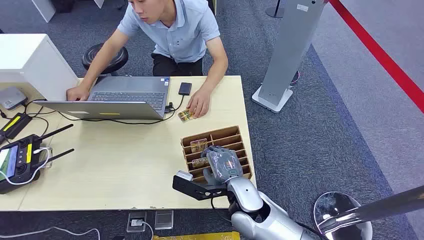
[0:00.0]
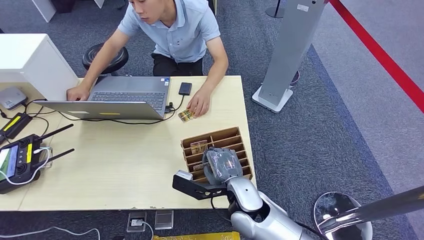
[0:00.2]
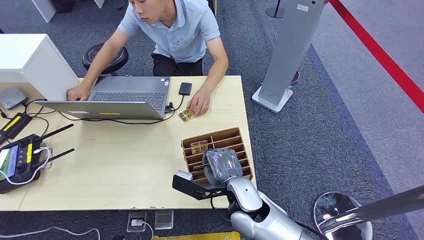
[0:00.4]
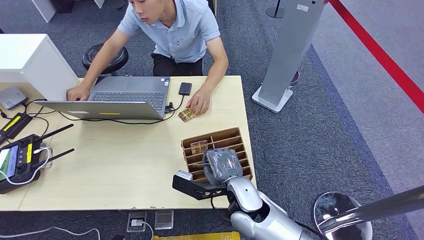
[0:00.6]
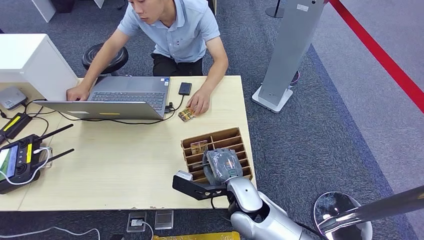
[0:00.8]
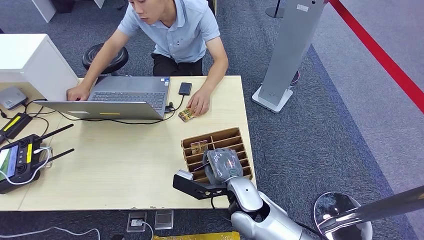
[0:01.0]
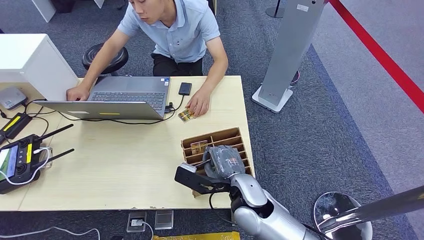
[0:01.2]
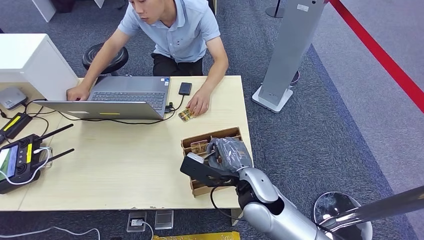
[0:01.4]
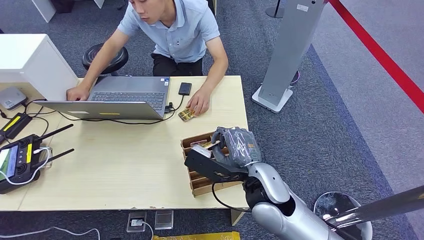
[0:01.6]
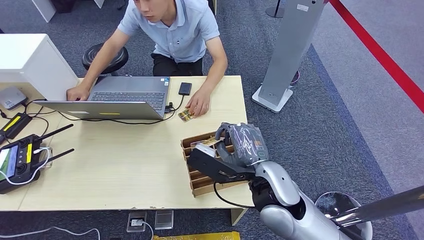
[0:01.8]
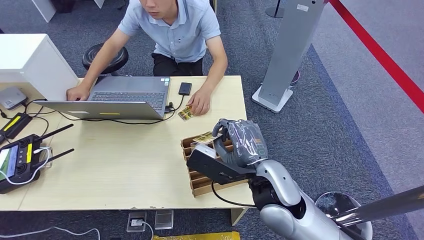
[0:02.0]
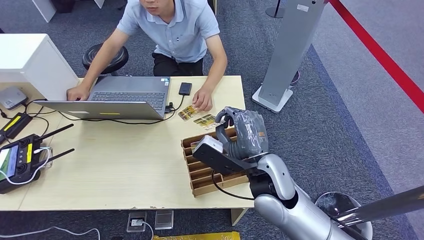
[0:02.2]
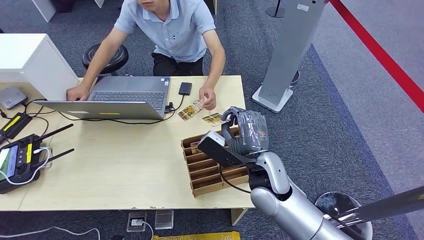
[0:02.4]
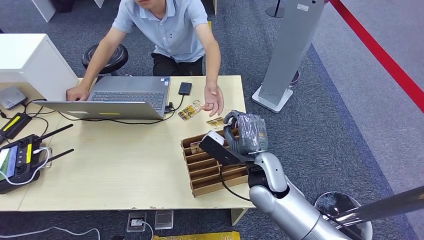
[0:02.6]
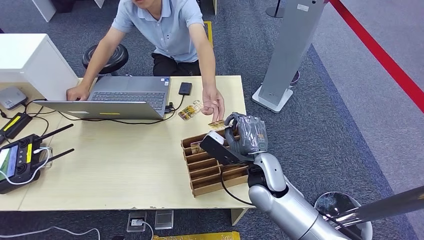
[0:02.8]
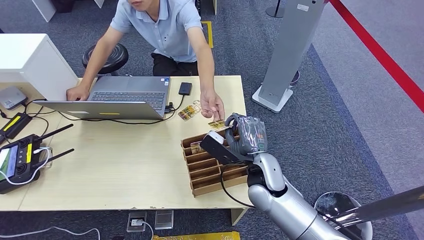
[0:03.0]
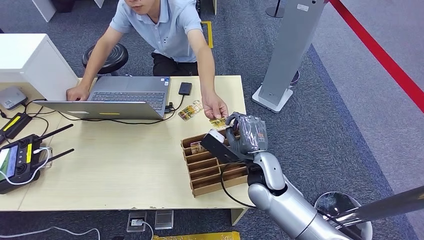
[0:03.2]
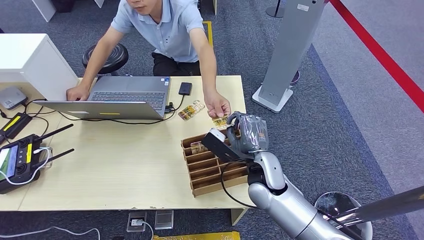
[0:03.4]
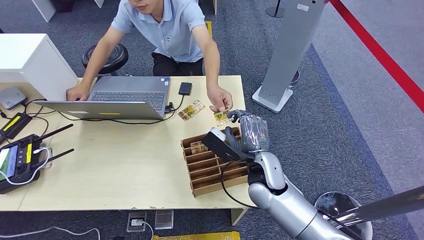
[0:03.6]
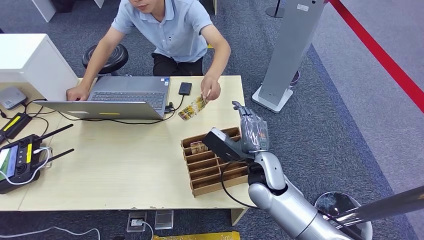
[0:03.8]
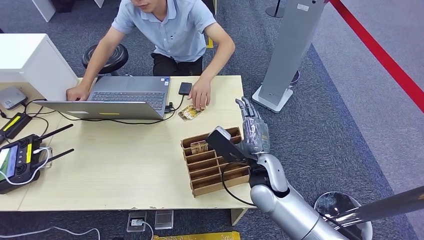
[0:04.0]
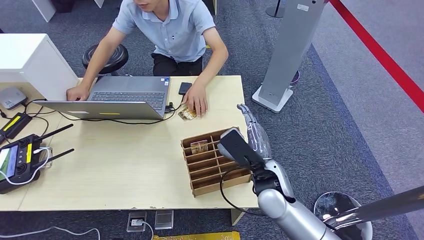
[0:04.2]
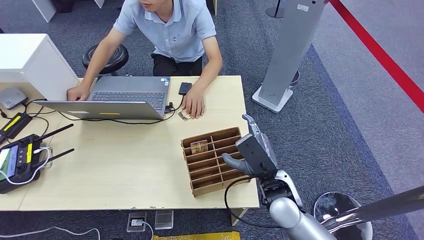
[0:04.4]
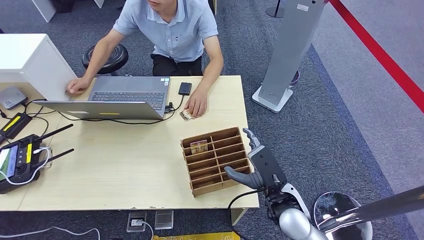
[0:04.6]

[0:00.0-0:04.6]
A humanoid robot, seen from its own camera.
Step, 0:00.0 to 0:01.8: Pick up the key card from the card box.
Step, 0:02.2 to 0:04.6: Hand the key card to the target.
0:01.6 to 0:03.0: The right hand moves roughly 5 cm.
0:03.0 to 0:04.6: The right hand goes some 10 cm backward and to the right.

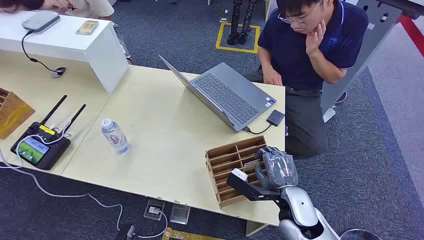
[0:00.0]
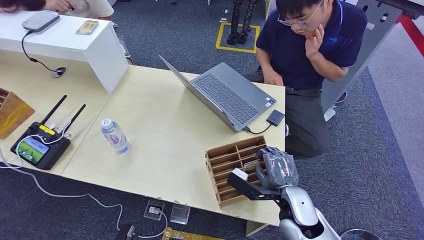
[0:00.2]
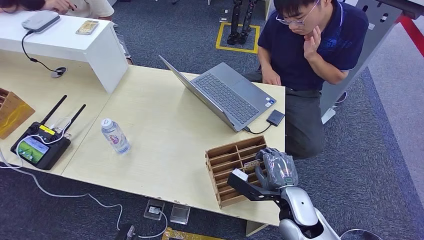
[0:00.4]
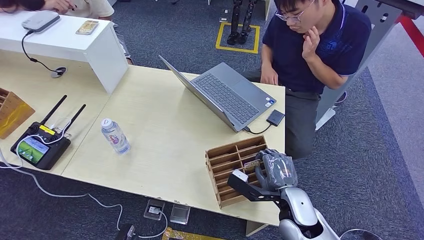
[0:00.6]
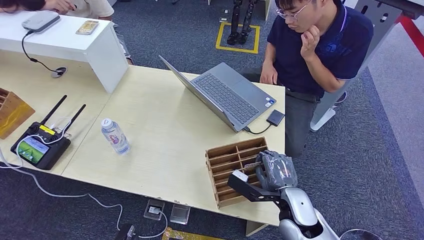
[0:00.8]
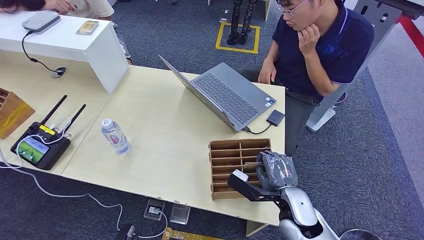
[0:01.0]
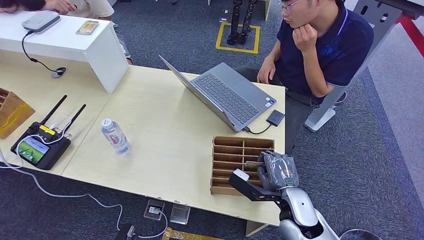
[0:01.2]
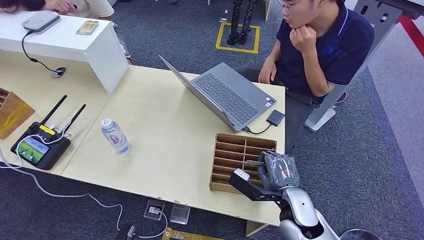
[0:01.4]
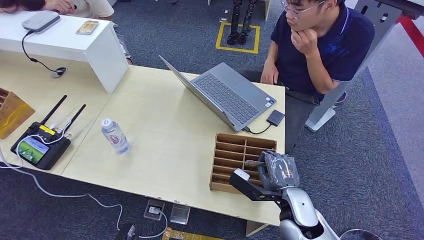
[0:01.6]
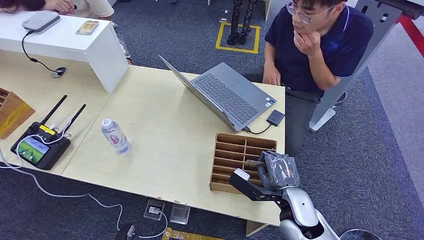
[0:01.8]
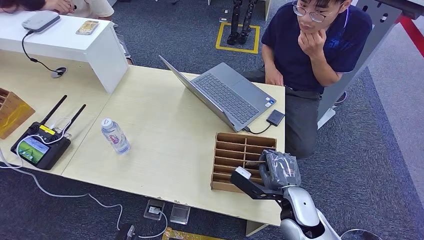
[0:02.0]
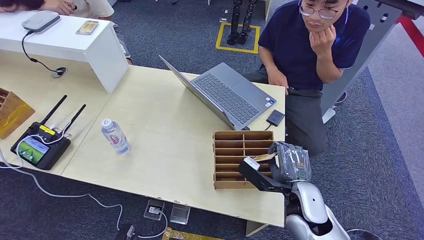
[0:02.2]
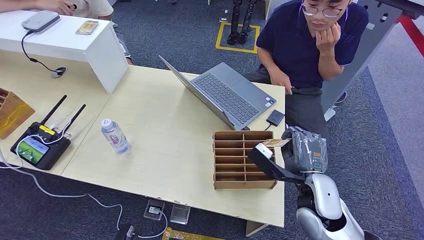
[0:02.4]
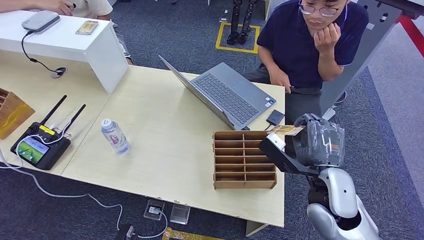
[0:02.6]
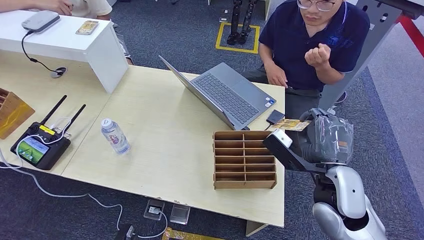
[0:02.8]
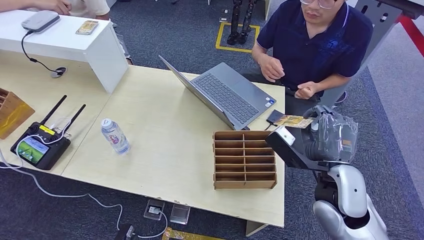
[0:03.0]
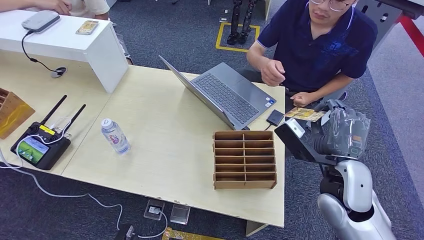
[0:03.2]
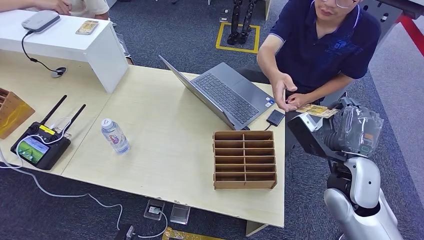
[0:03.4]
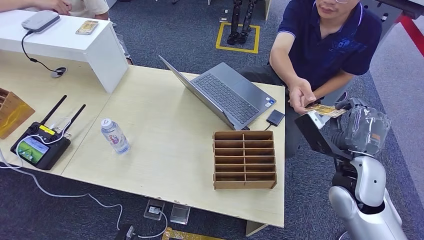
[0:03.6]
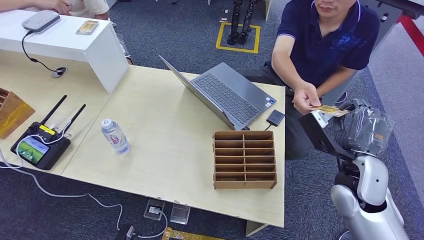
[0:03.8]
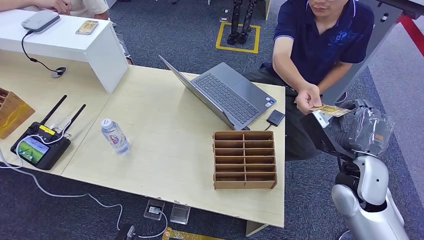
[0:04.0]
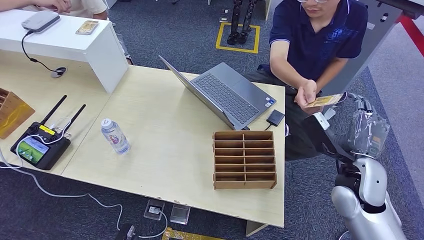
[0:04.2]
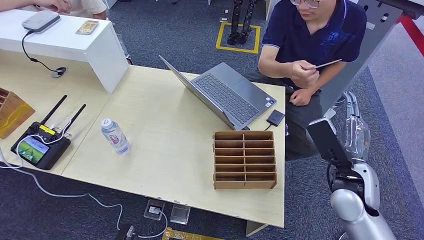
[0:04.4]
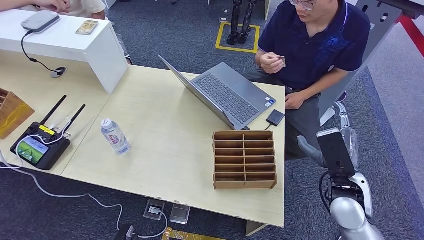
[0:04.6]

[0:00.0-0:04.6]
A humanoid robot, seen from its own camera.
Step, 0:00.0 to 0:02.6: Pick up the key card from the card box.
Step, 0:03.2 to 0:04.6: Hand the key card to the target.
0:01.6 to 0:03.0: The right hand moves upward, roughly 10 cm.
0:03.0 to 0:04.6: The right hand shifts roughly 5 cm downward and to the right.
